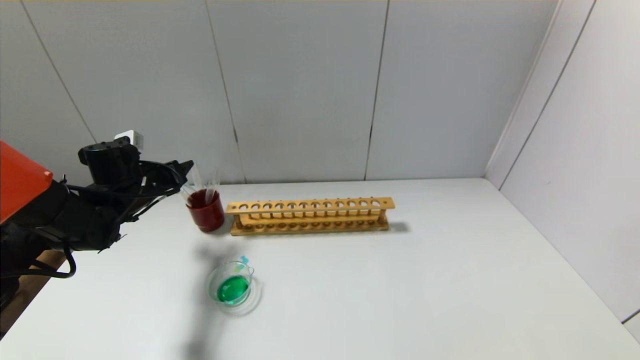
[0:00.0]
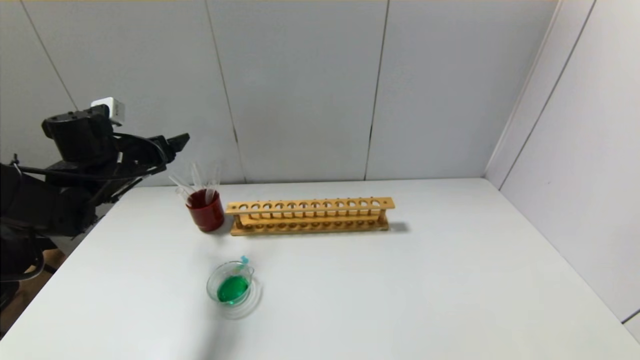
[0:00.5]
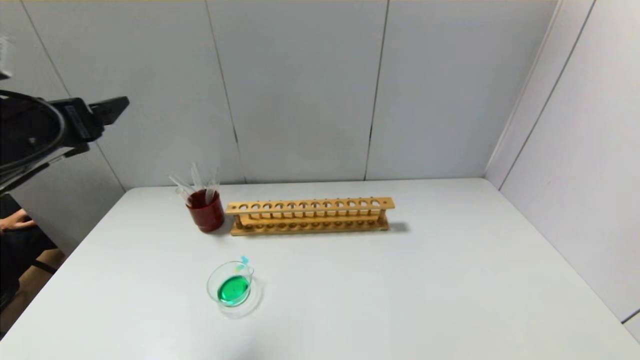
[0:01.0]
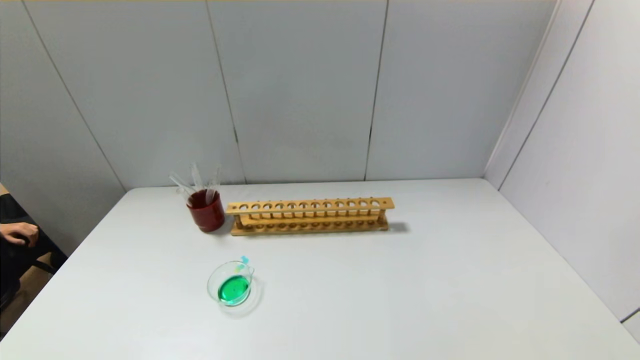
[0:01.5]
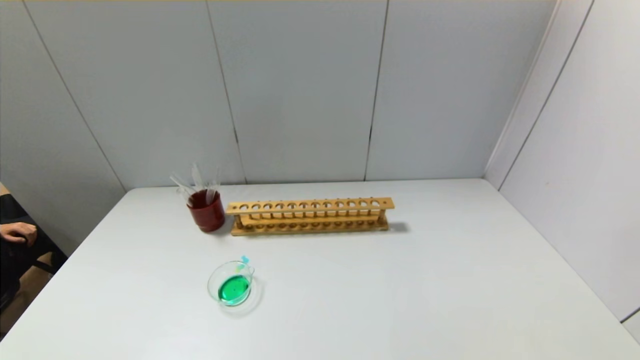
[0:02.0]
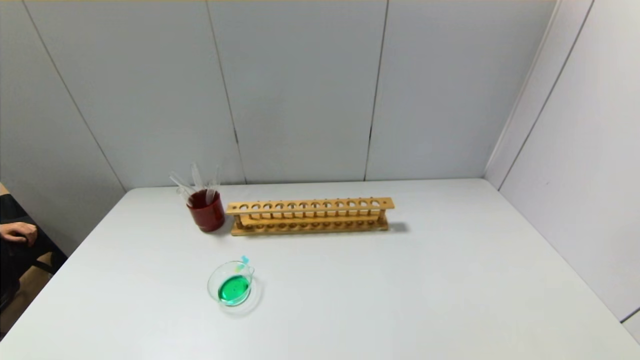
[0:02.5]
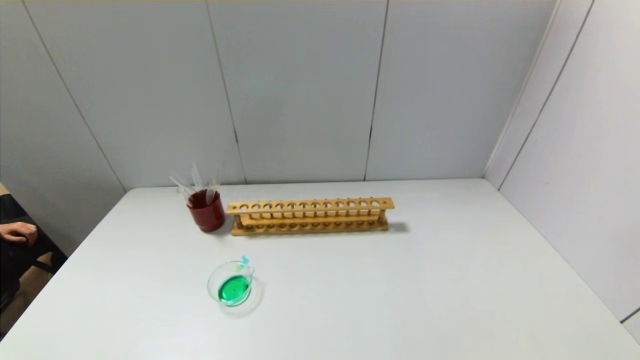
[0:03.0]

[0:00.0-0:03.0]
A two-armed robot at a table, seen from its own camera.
0:00.0 to 0:01.5: The left gripper moves backward, approximately 40 cm.
